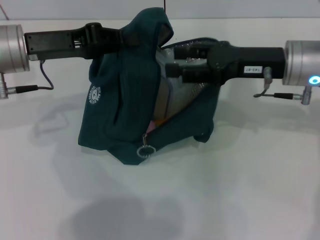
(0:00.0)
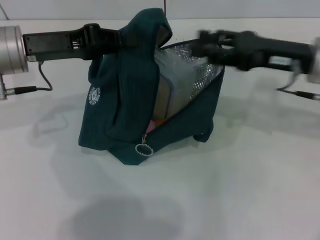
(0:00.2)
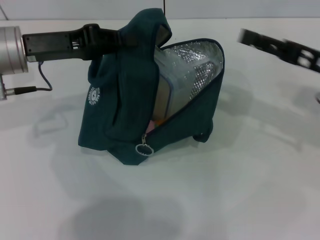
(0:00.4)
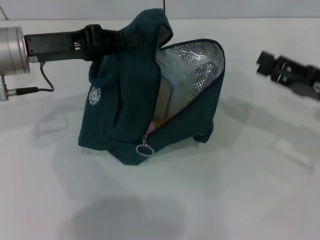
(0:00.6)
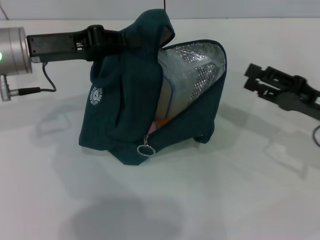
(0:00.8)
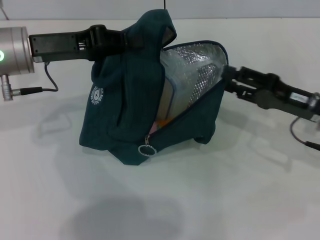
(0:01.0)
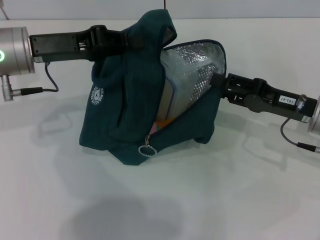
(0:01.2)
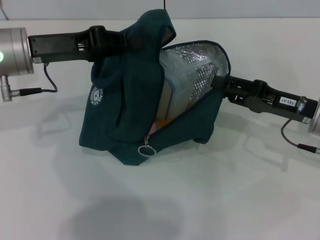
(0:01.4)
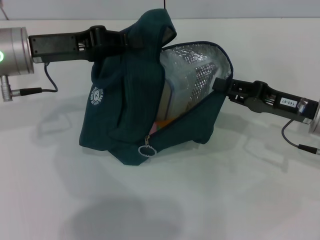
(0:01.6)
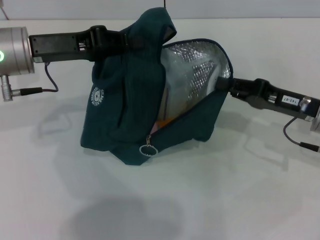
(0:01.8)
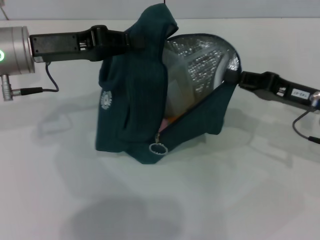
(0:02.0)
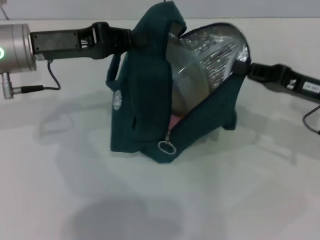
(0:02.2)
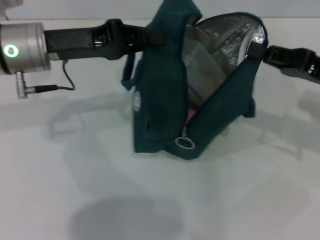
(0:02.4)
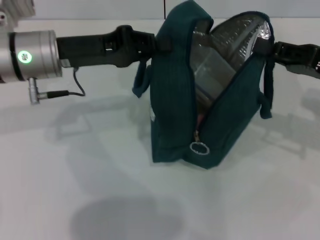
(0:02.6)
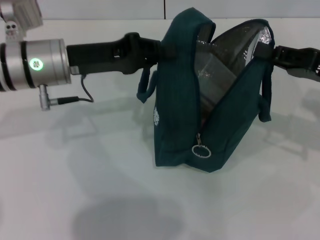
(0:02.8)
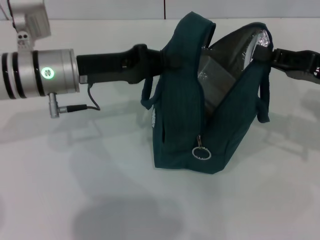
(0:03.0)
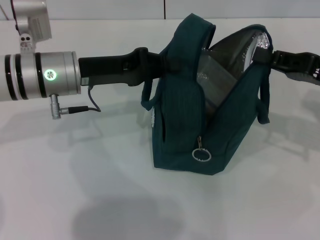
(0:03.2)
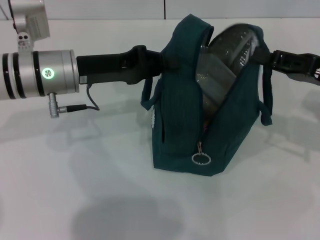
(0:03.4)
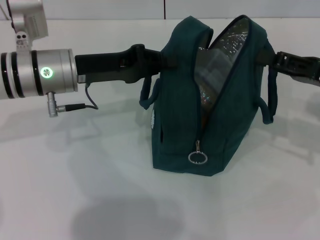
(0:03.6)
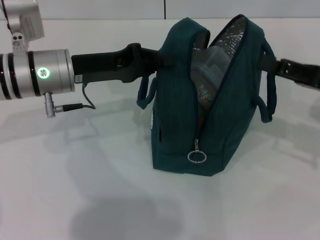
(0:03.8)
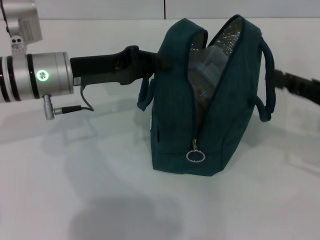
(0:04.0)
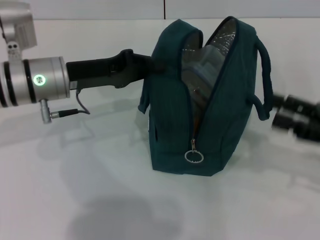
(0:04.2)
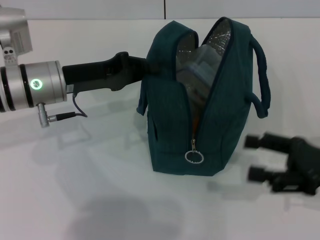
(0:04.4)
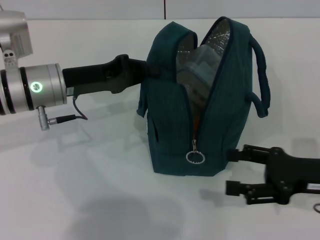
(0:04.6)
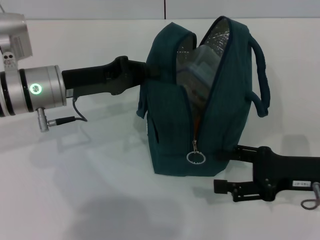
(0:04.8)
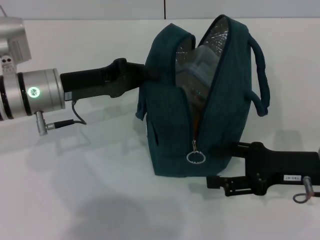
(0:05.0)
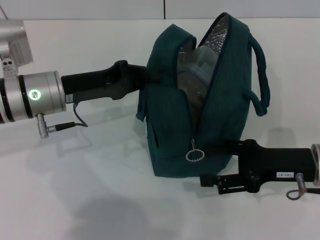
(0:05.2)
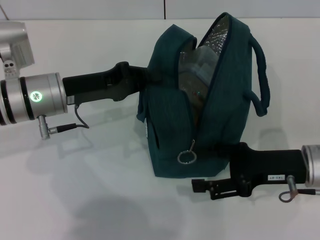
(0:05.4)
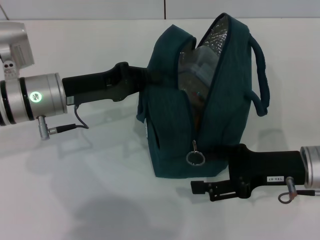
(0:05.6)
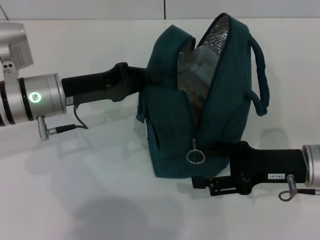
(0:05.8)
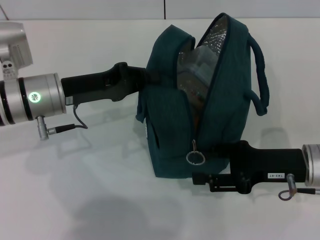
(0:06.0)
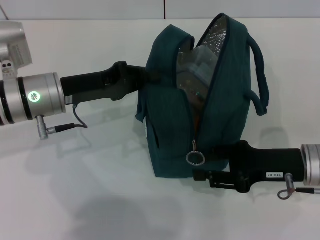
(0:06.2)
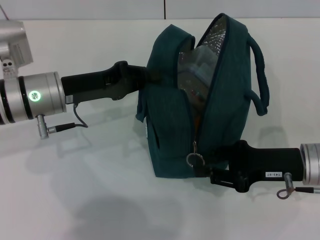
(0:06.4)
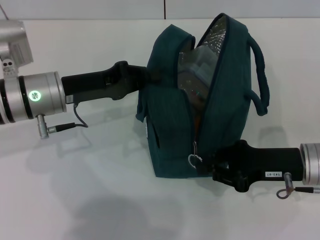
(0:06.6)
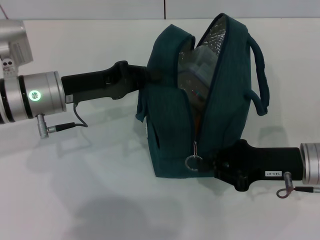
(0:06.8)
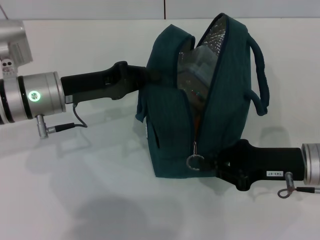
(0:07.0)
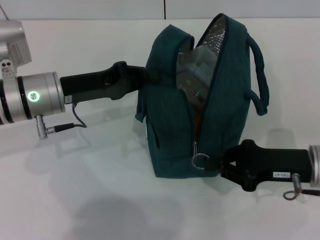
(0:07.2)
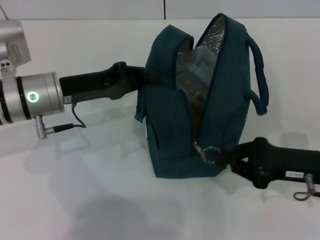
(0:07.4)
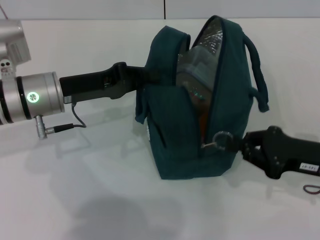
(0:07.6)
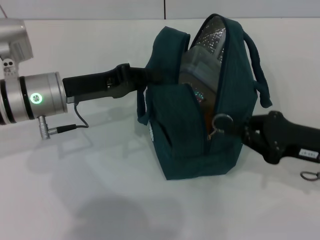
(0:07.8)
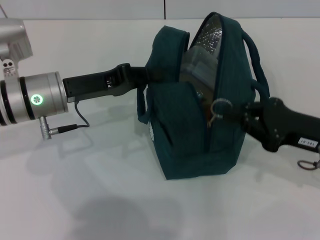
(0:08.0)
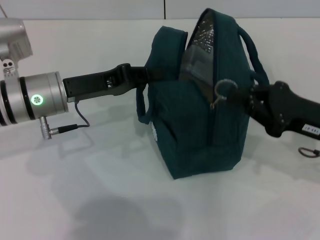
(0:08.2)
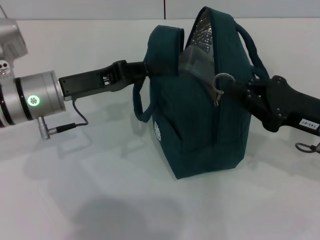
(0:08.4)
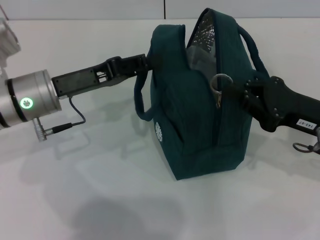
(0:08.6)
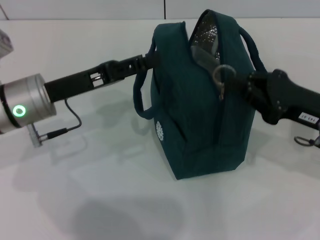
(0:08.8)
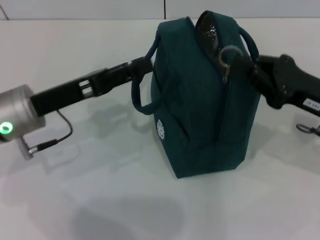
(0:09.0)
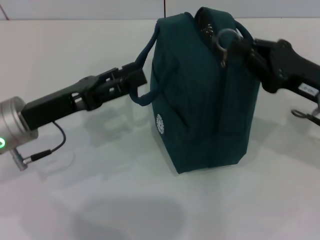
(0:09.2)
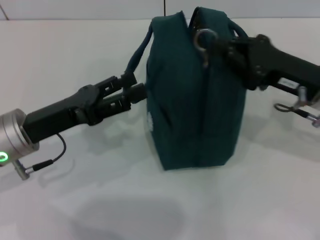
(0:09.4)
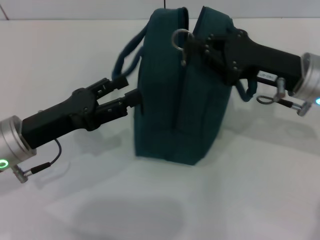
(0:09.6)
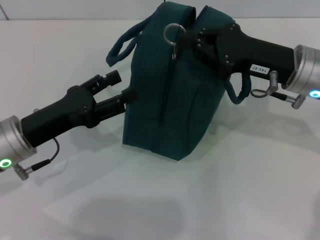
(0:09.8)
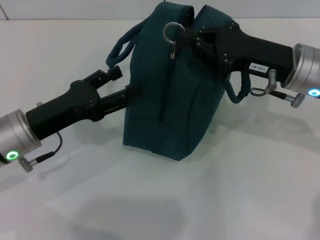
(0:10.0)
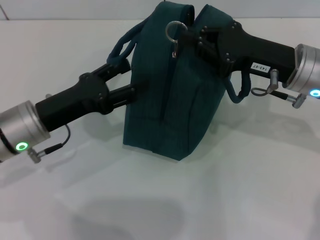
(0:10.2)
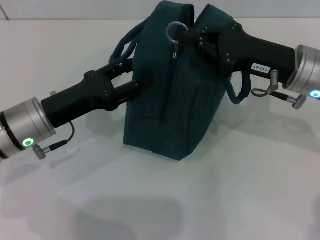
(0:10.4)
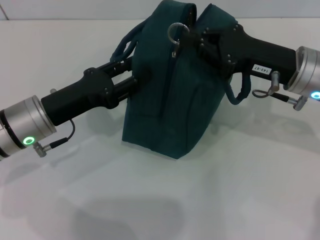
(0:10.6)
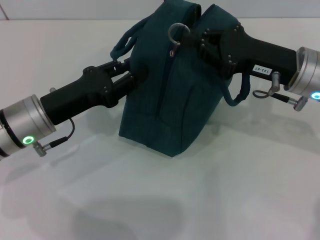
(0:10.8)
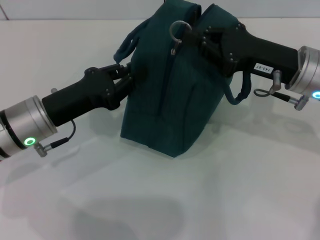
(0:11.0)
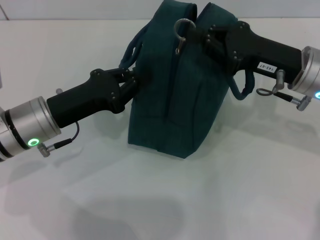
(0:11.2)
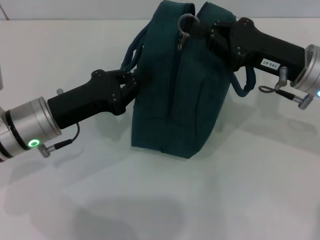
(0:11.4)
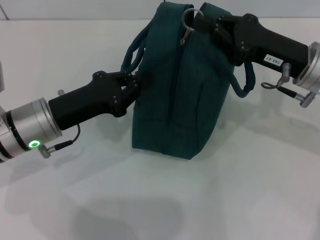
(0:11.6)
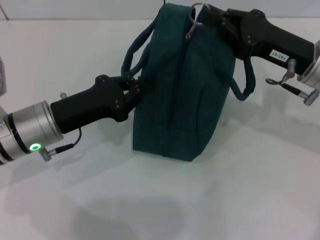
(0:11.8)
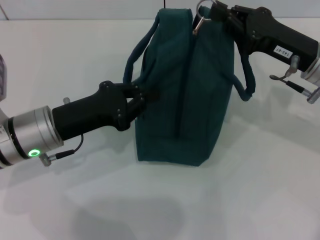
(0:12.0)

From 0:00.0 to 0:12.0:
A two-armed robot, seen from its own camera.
Step, from 0:00.0 to 0:03.8: Hold the lunch bag with your right hand.
Step, from 0:04.0 to 0:09.0: Hold the lunch bag with your left hand.
From 0:00.0 to 0:01.6: The right gripper heads downward and to the right, covering about 10 cm.
From 0:01.6 to 0:03.0: The left gripper travels to the right by approximately 5 cm. Meanwhile the right gripper heads upward, covering about 5 cm.
From 0:03.0 to 0:04.4: The right gripper goes approximately 10 cm backward, and opens its fingers.
From 0:04.4 to 0:06.0: The right gripper travels to the left by roughly 5 cm.
From 0:06.0 to 0:07.6: The right gripper closes its fingers.
From 0:07.6 to 0:09.0: The left gripper opens its fingers, while the right gripper ends up roughly 5 cm from where it was.
From 0:09.0 to 0:10.4: The right gripper is displaced to the left and forward by about 10 cm.
From 0:10.4 to 0:12.0: The left gripper closes.

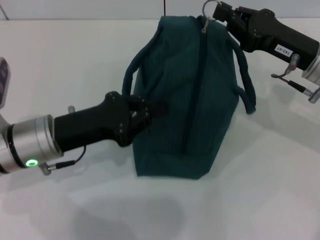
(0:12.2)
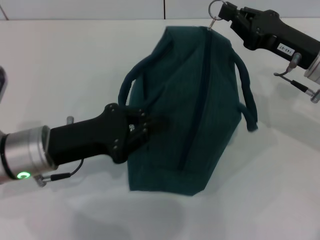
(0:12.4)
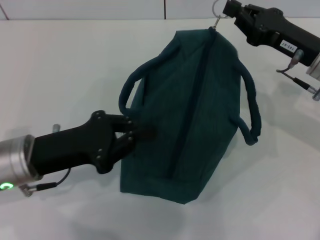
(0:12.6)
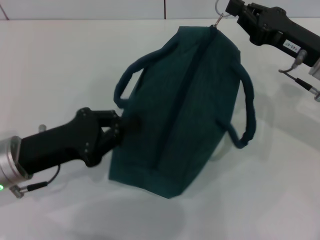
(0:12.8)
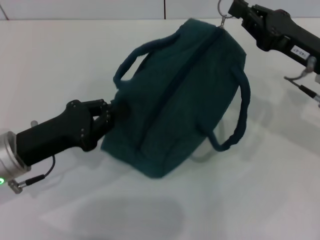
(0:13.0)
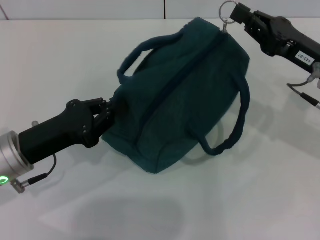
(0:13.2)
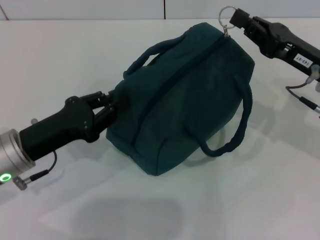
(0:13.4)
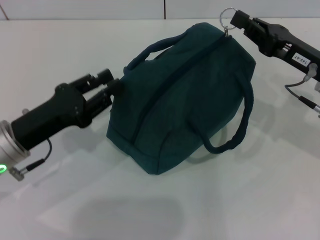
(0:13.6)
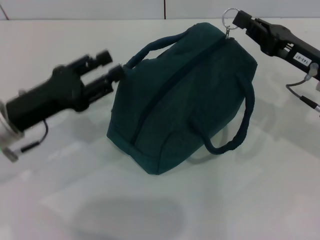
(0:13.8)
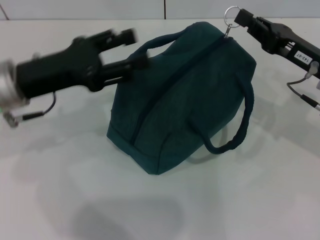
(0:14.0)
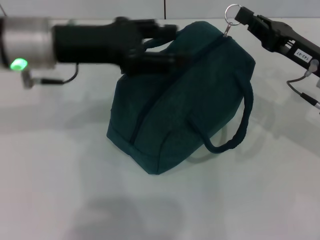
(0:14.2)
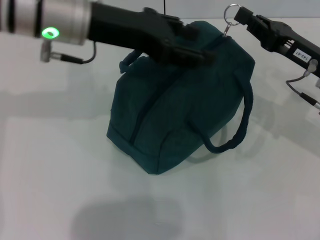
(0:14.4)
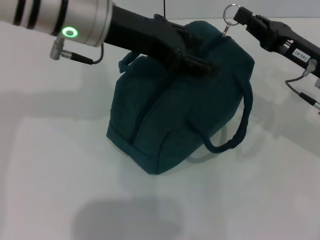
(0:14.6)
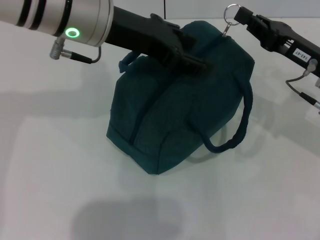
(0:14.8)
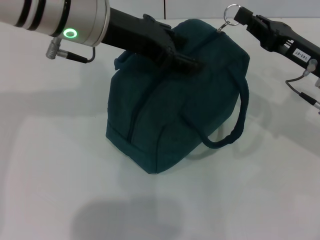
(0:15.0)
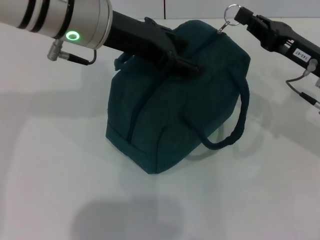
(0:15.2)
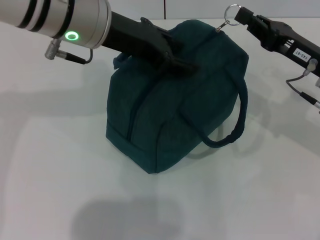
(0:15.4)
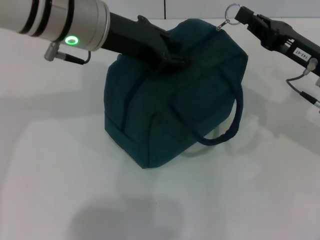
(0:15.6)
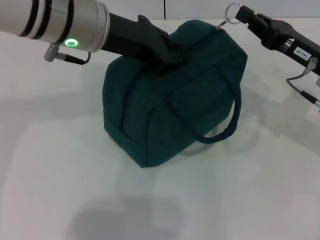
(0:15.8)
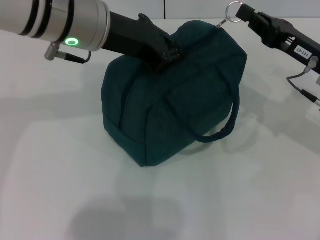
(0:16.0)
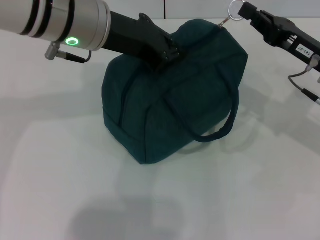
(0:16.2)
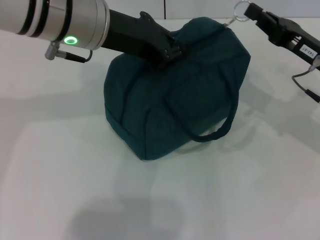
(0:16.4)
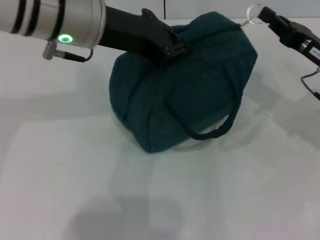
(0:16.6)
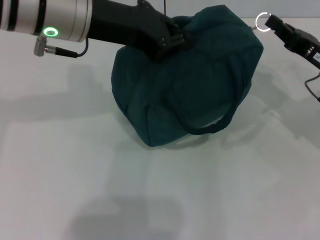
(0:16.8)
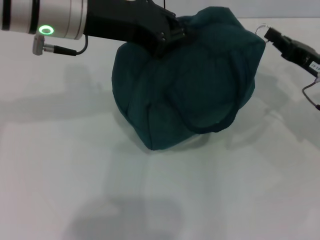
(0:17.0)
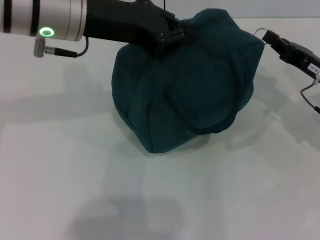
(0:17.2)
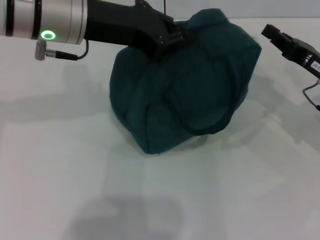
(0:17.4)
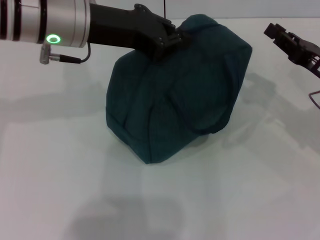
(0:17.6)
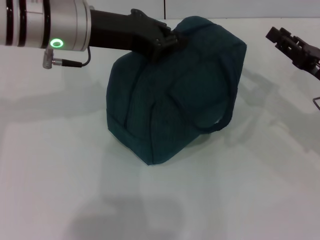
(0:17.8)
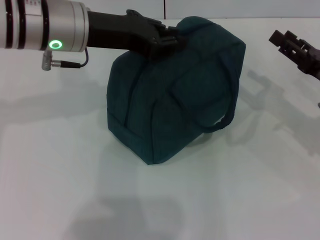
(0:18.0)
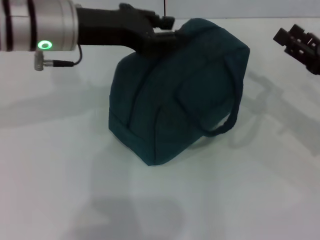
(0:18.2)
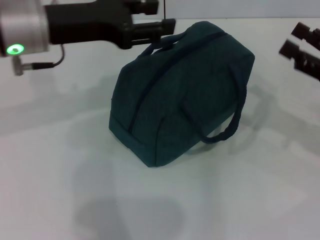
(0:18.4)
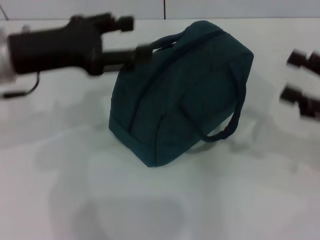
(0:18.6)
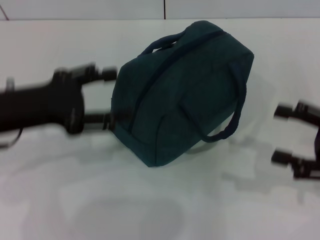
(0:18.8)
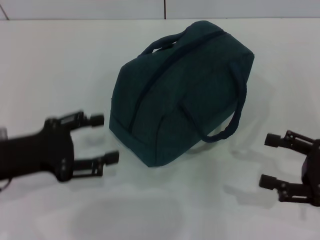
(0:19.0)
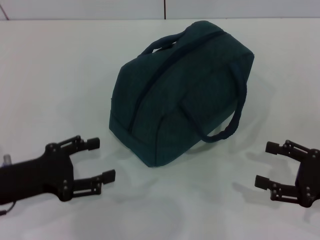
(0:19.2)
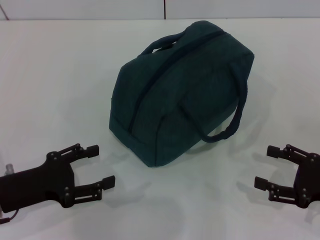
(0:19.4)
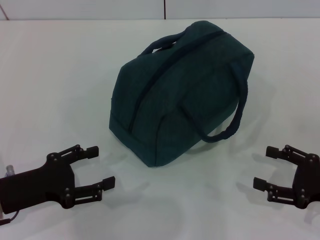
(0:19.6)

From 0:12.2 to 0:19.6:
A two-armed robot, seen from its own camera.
Step, from 0:12.2 to 0:17.8: Zip up the lunch bag with your right hand.
Step, from 0:18.0 to 0:18.8: Hold the lunch bag with your left hand.
From 0:13.6 to 0:15.2: The left gripper travels upward, to the right and forward by about 25 cm, and opens.
From 0:15.2 to 0:16.6: The left gripper closes.
From 0:16.6 to 0:18.2: The right gripper ends up approximately 5 cm from where it was, and opens.
From 0:18.2 to 0:19.6: The right gripper travels backward and downward by some 10 cm. The left gripper heads downward, backward and to the left, covering roughly 25 cm, and opens its fingers.
